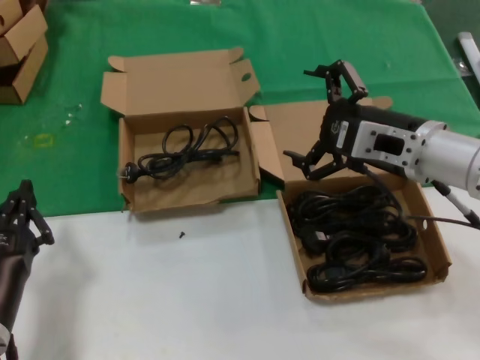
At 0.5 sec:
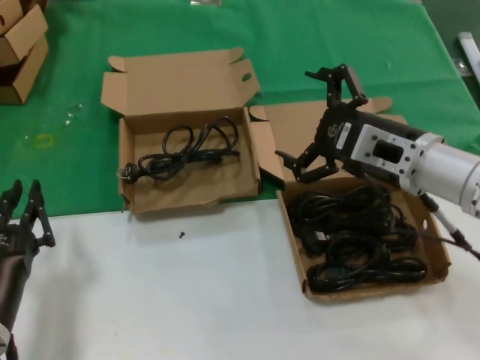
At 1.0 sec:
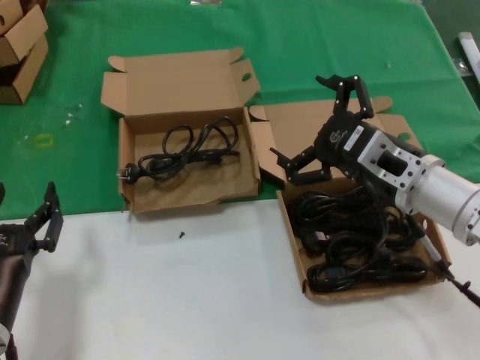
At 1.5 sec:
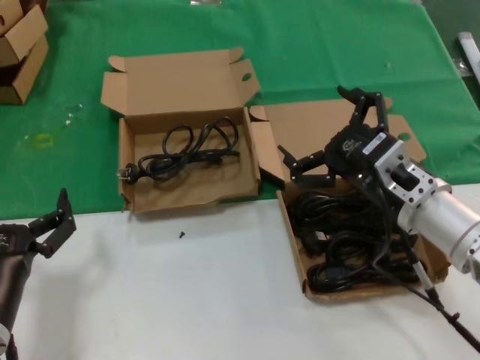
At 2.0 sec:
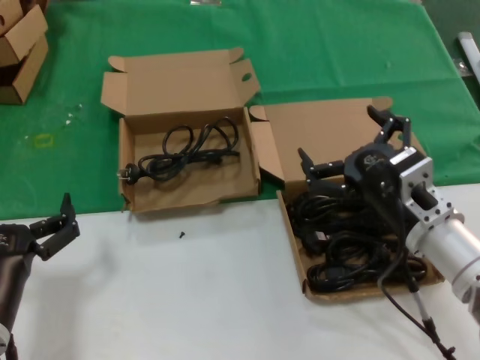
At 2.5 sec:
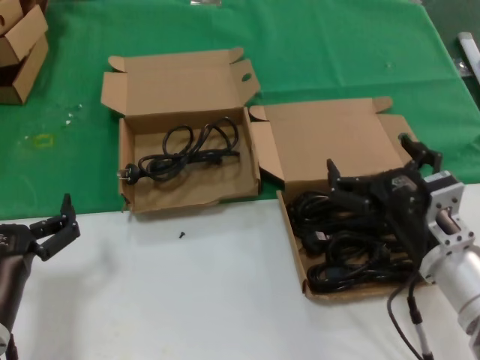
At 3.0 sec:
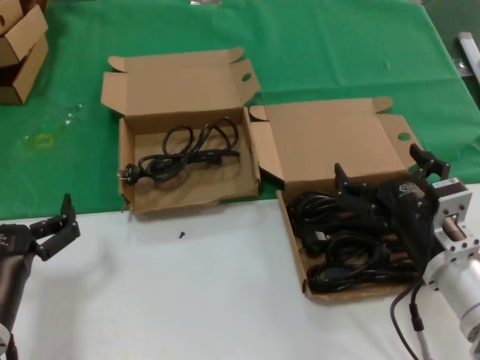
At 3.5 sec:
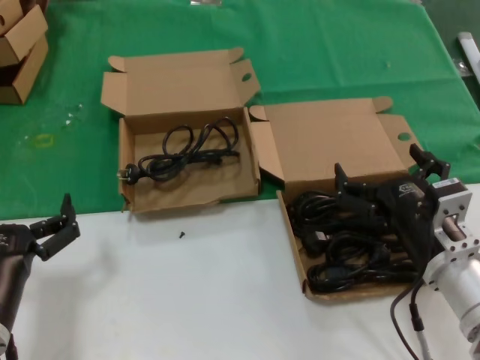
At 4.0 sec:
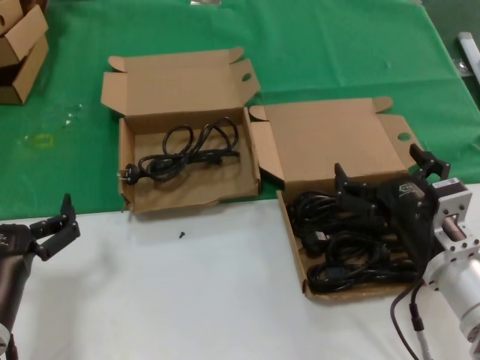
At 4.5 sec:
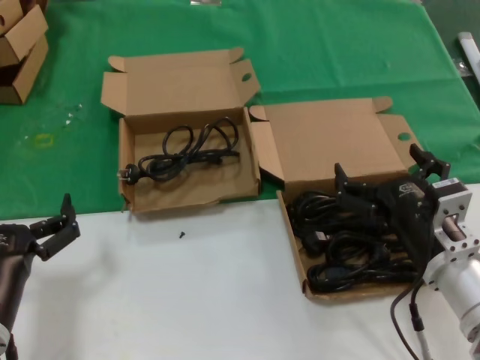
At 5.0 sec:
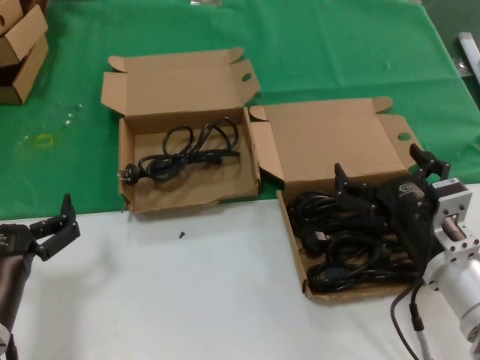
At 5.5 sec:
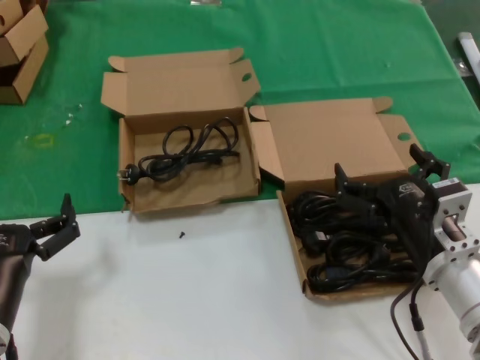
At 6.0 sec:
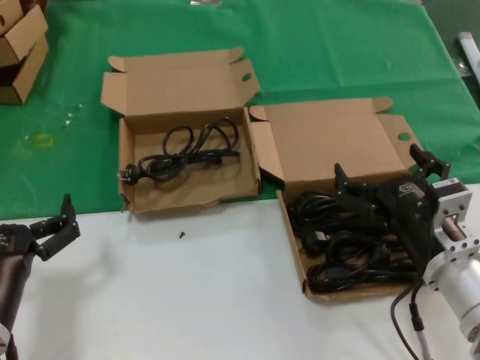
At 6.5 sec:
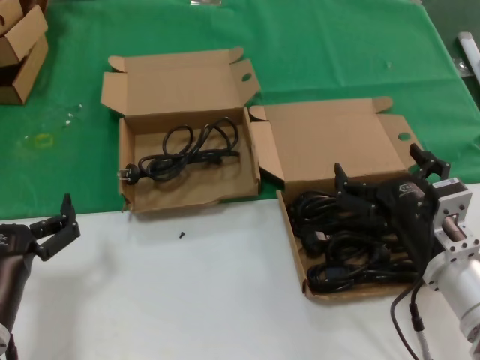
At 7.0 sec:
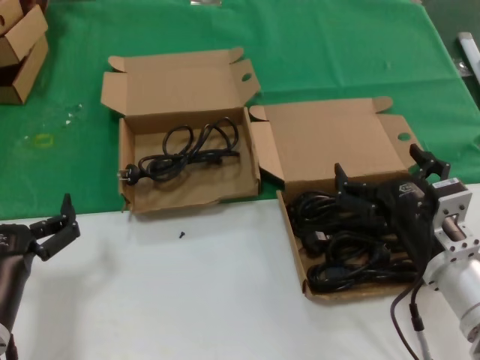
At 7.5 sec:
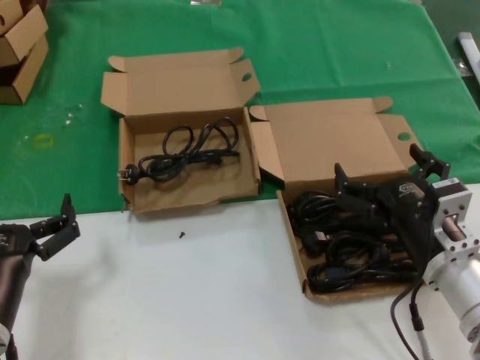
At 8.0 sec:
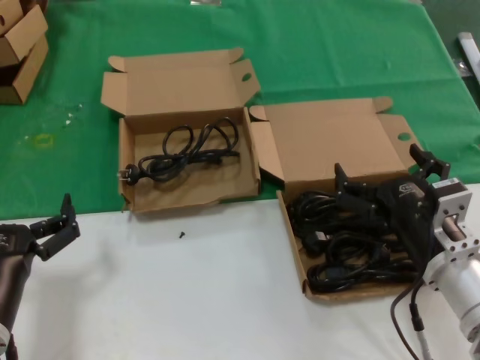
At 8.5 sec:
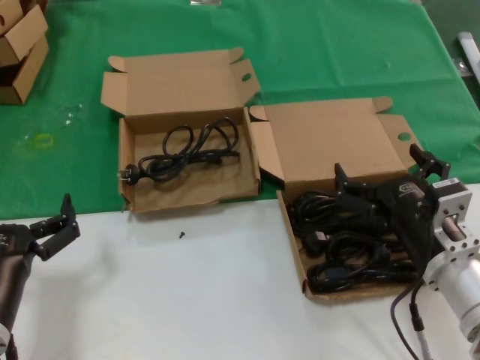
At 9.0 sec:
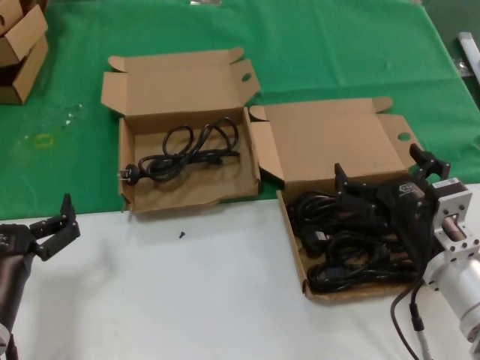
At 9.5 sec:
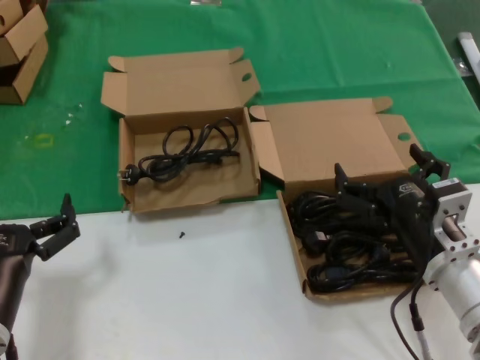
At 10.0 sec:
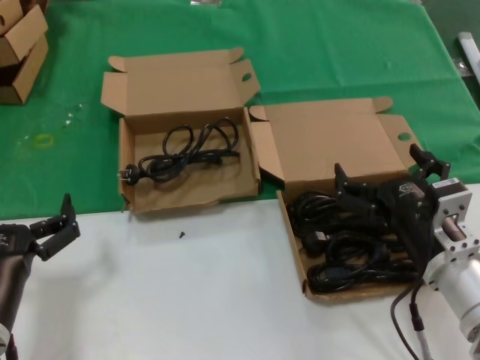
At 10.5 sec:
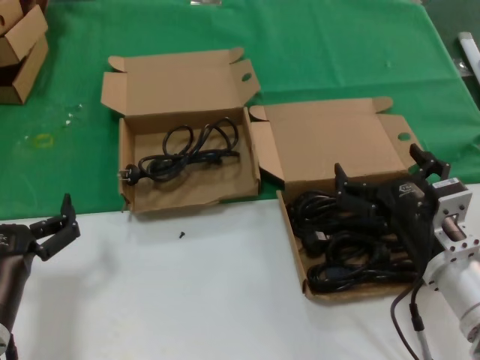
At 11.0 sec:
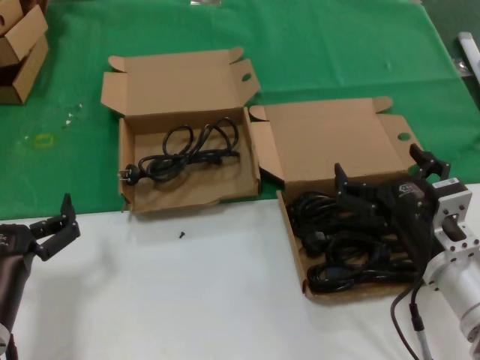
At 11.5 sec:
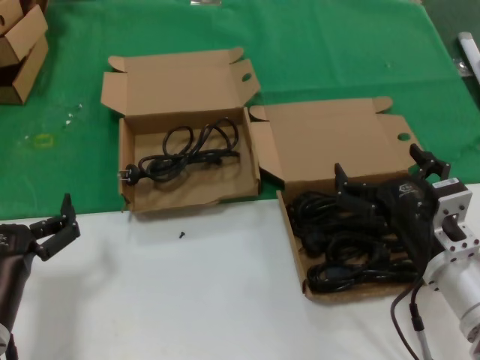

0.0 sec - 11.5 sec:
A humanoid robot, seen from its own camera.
Task of the whole recording: take the parts from the box containing them and put them into an empty box.
0.0 sec - 2.0 sec: The right hand shifts roughly 10 cm downward and backward.
2.0 sec - 4.0 sec: The right hand changes place by some 5 cm.
4.0 sec - 11.5 sec: Both hands stay about where they are.

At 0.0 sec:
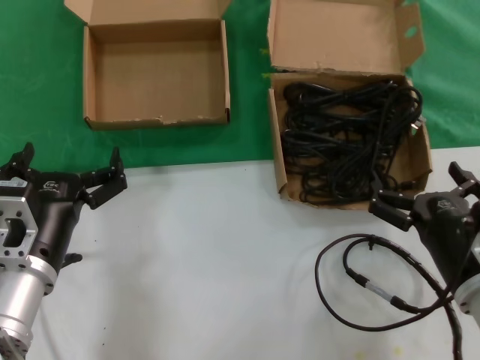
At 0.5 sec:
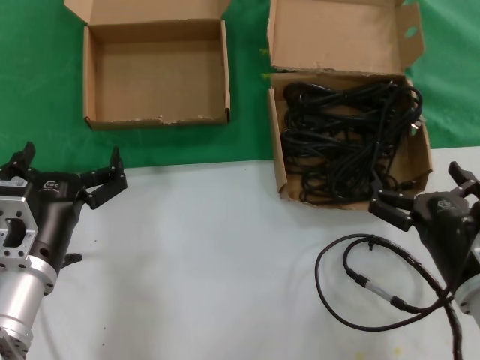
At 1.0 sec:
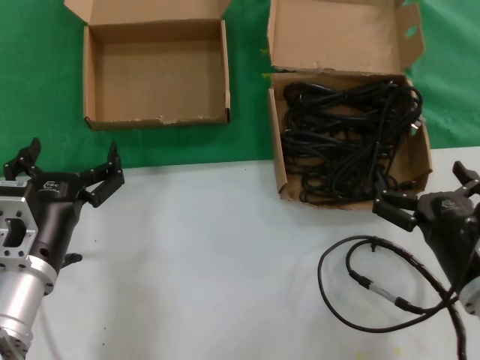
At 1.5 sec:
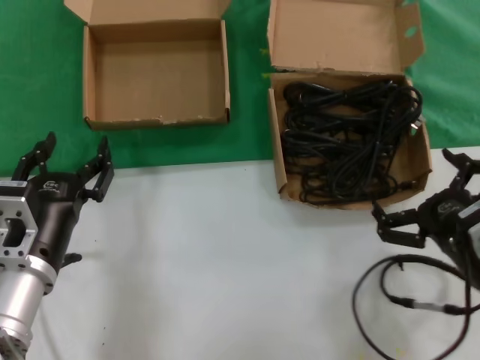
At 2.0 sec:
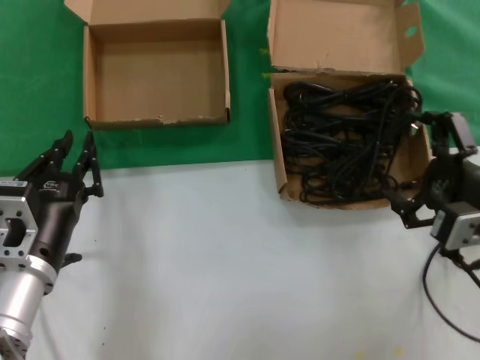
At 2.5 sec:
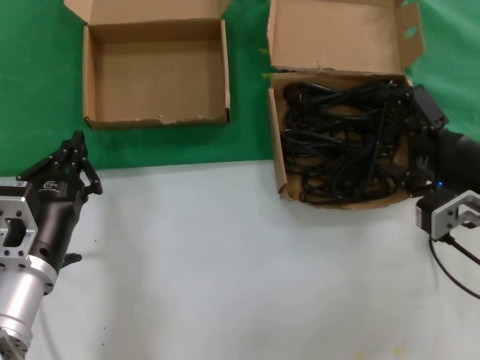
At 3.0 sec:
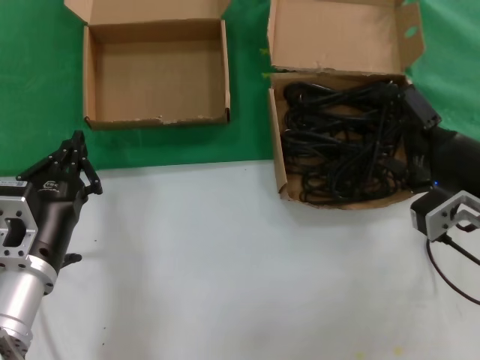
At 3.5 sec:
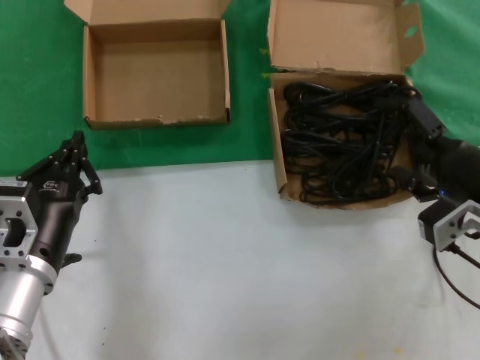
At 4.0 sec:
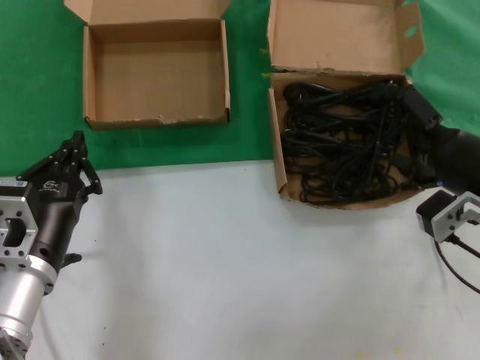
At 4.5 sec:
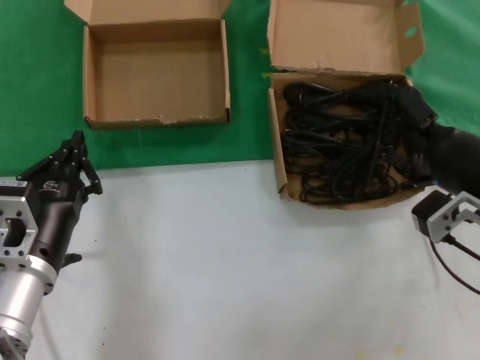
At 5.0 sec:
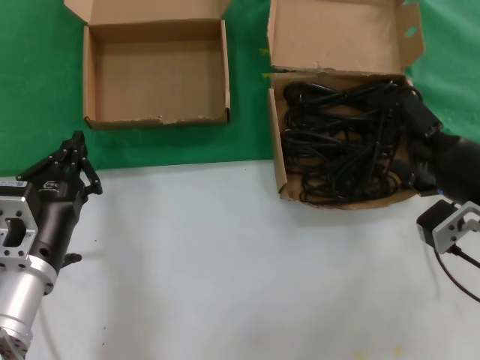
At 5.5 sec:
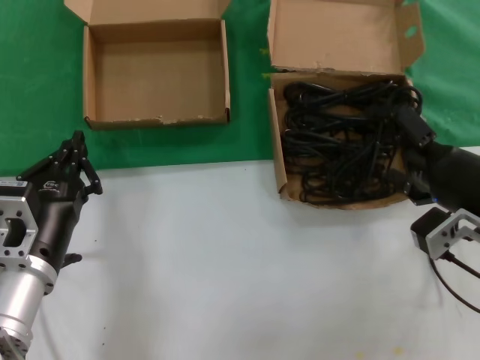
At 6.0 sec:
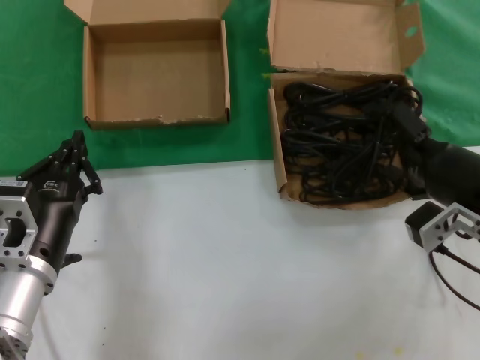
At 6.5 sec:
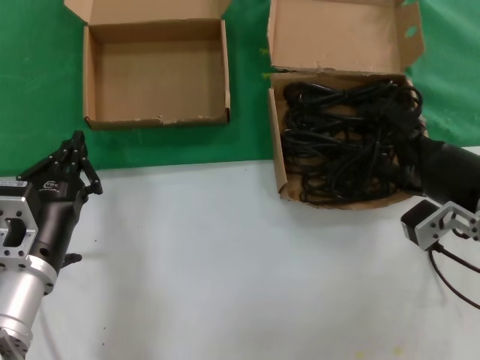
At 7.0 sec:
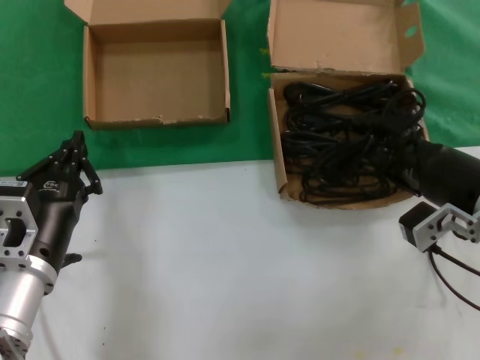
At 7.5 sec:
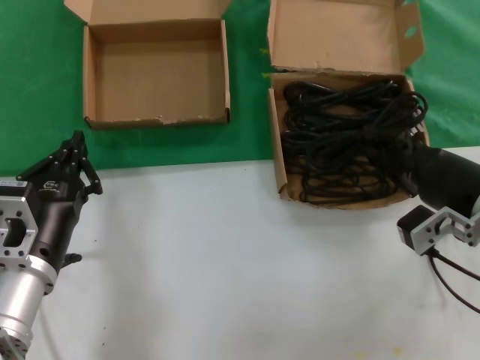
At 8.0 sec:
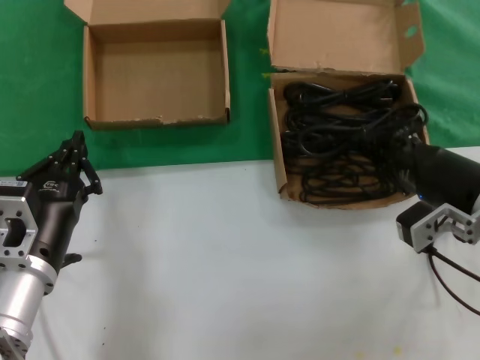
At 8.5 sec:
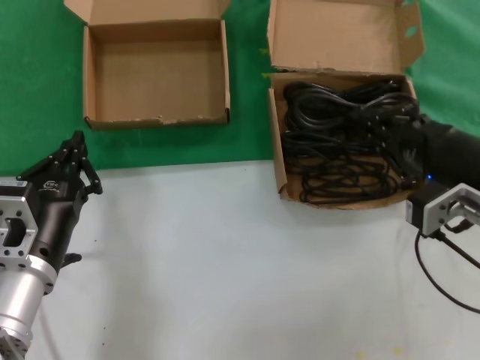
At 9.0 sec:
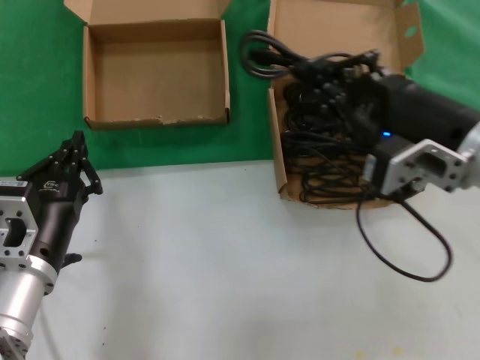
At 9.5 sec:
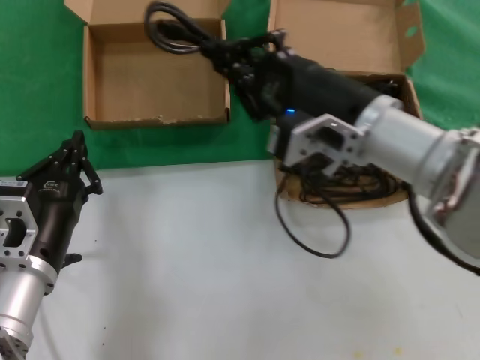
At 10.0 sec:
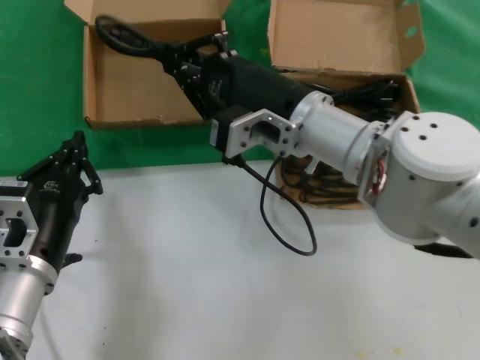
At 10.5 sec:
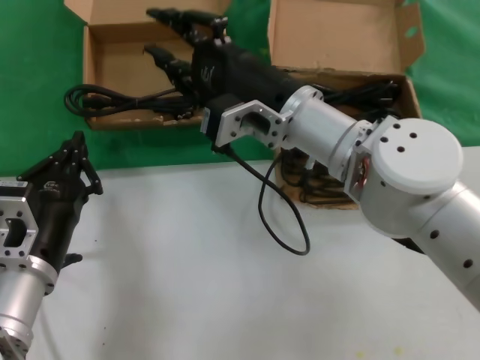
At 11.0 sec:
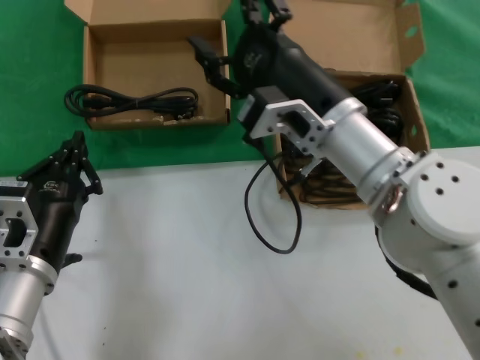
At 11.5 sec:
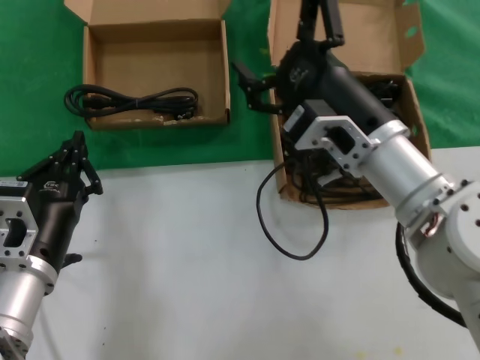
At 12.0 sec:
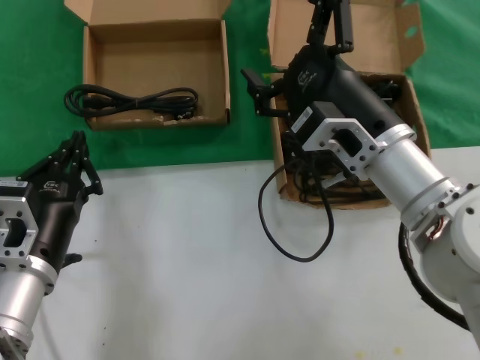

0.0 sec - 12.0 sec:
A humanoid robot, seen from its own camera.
Task of the whole recording: take the parts from the box containing them and put them into an empty box.
Step, 0.0 sec - 7.0 sec: Grasp the data cable.
Step, 7.5 sec - 10.0 sec: Place the data cable in the another box.
0.0 sec - 2.0 sec: The right hand travels upward by approximately 10 cm.
2.0 sec - 4.0 sec: The right hand shifts by approximately 5 cm.
4.0 sec - 8.0 sec: The hands make only small movements.
8.0 sec - 10.0 sec: The right hand moves to the left, about 20 cm.
10.0 sec - 12.0 sec: The right hand goes approximately 5 cm to the right.

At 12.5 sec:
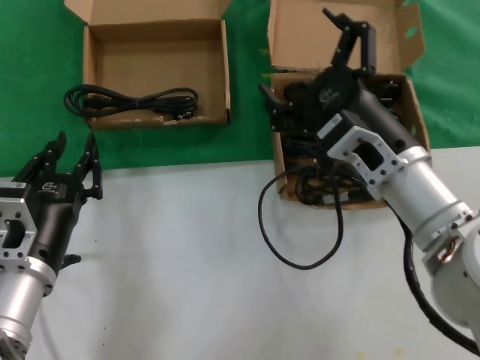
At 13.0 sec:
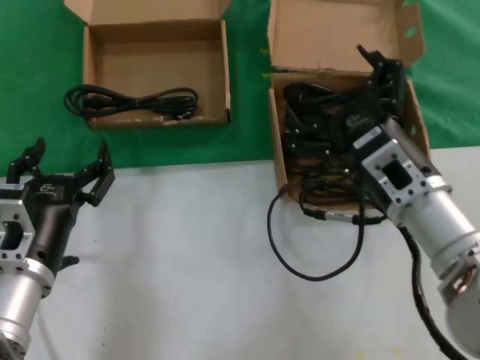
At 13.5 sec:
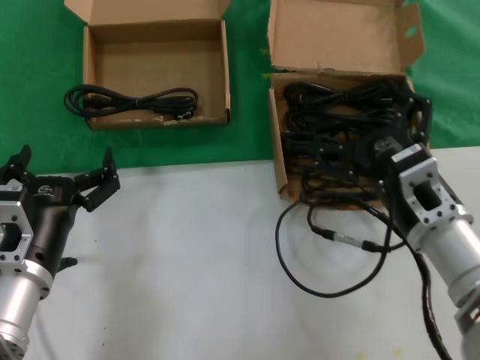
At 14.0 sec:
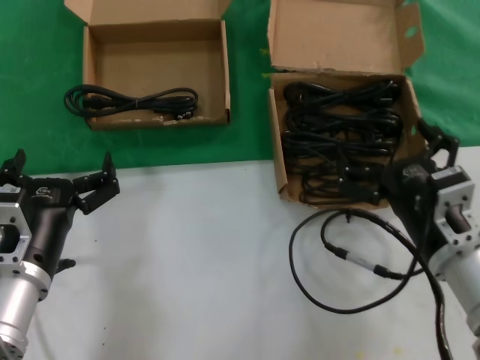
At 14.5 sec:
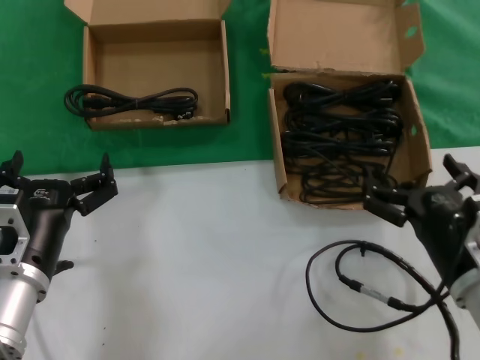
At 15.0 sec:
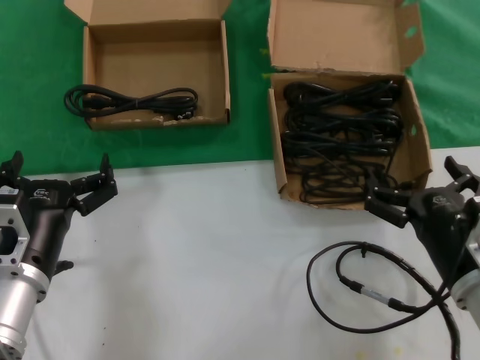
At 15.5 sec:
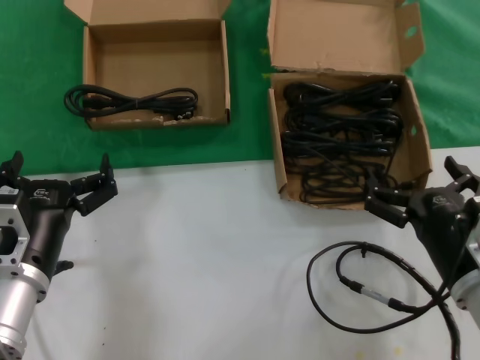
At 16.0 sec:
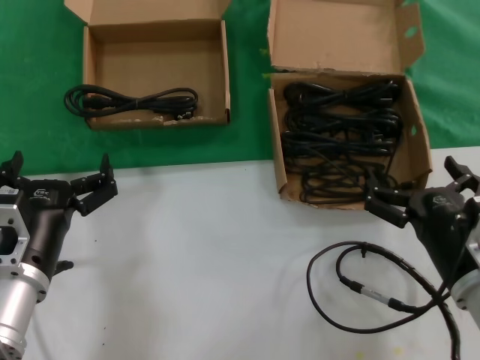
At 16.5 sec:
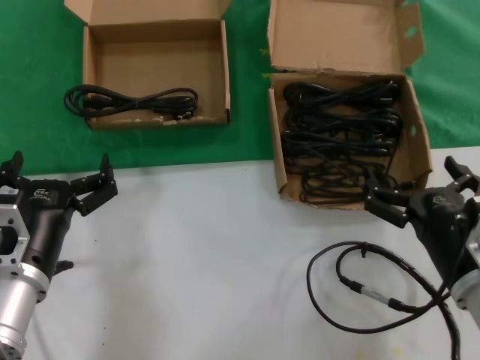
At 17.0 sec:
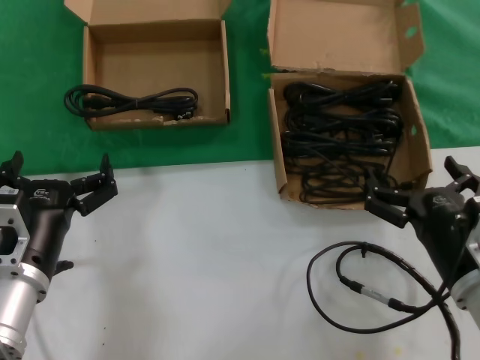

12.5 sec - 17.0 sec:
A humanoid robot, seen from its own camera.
Task of the whole recording: take the parts from the box containing them and put them into an empty box.
12.5 sec - 14.5 sec: The right hand moves downward, to the right and backward, some 15 cm.
14.5 sec - 17.0 sec: Both hands stay about where they are.
